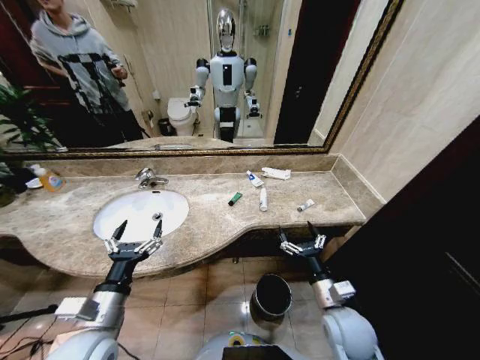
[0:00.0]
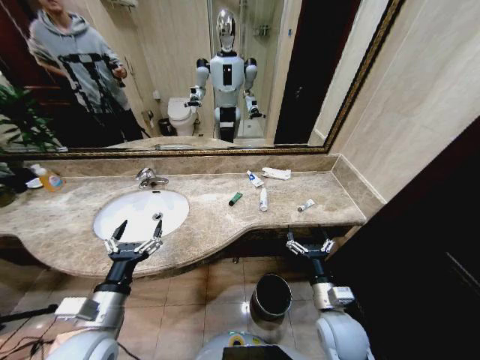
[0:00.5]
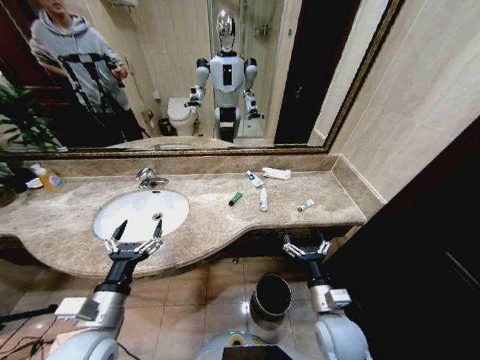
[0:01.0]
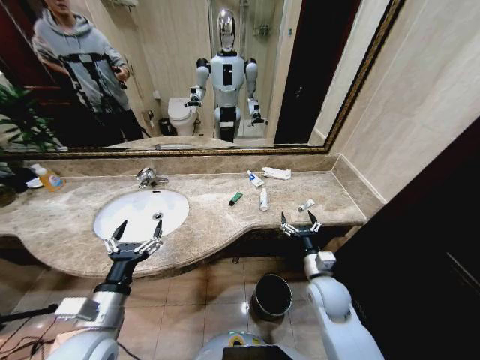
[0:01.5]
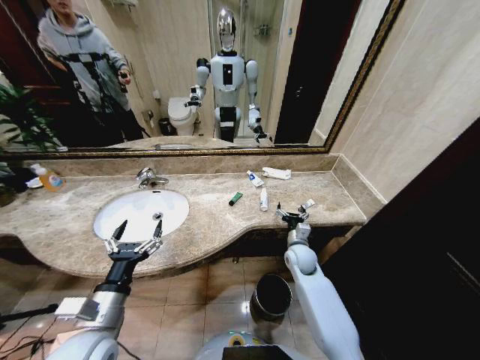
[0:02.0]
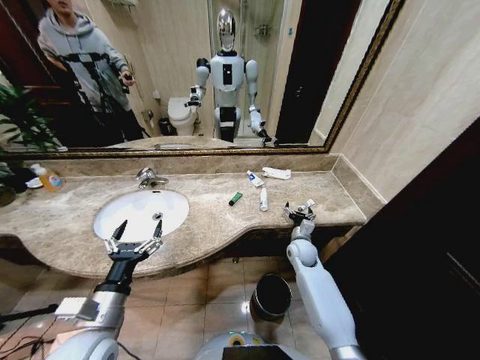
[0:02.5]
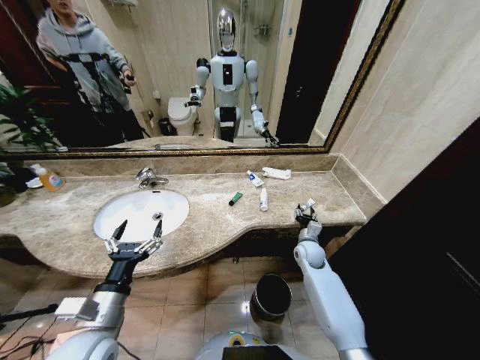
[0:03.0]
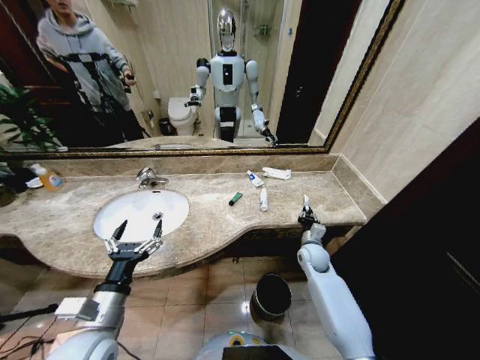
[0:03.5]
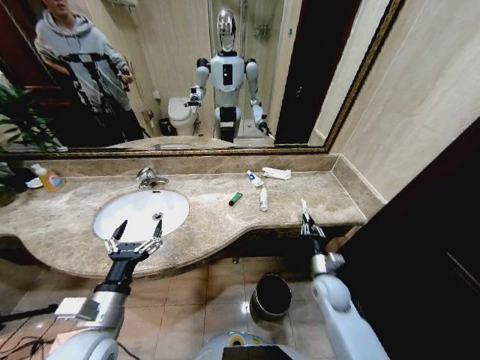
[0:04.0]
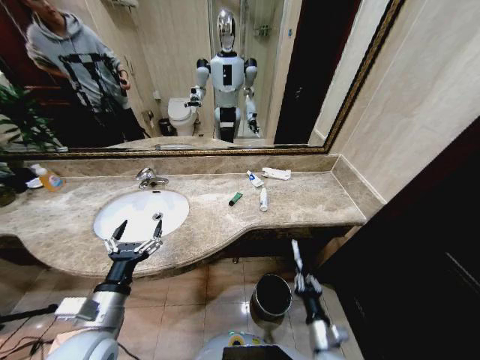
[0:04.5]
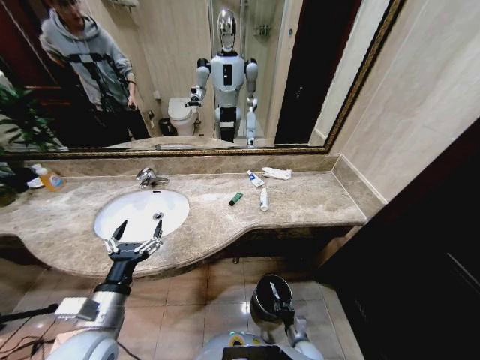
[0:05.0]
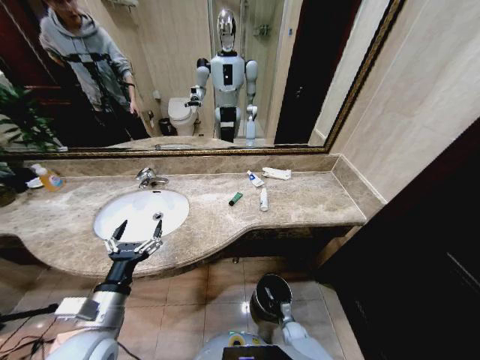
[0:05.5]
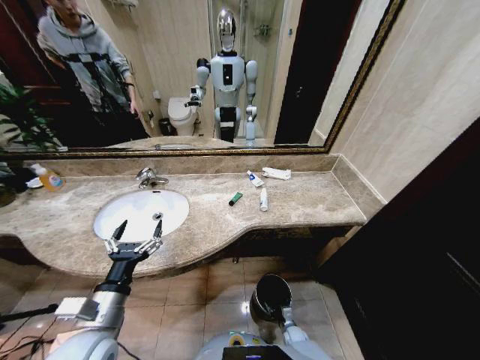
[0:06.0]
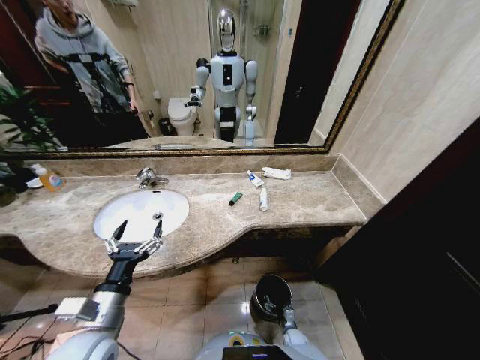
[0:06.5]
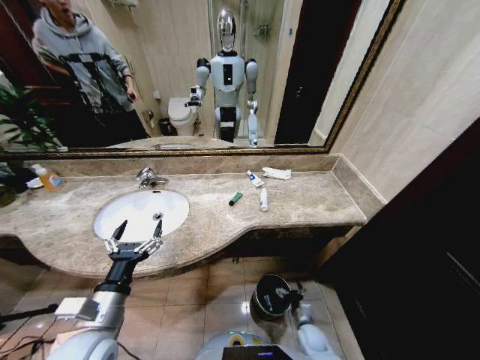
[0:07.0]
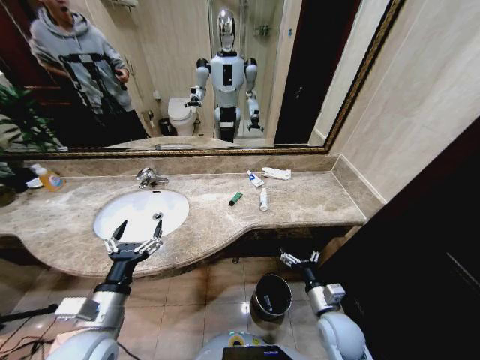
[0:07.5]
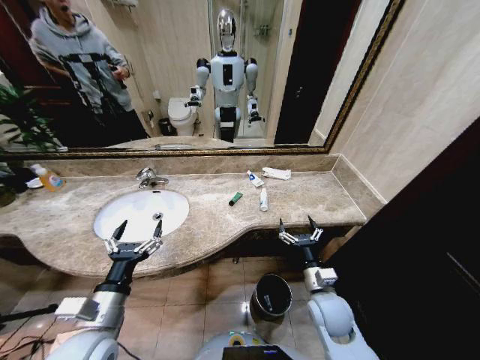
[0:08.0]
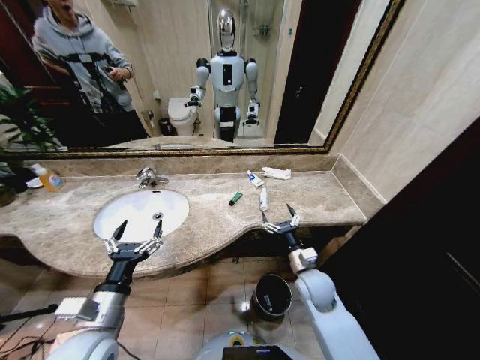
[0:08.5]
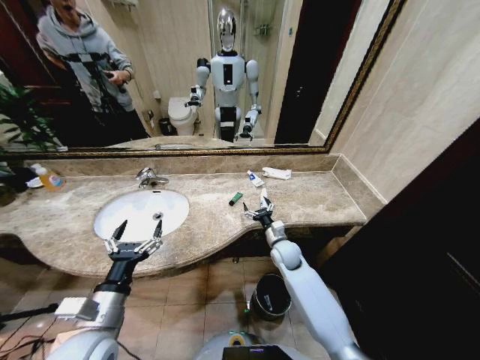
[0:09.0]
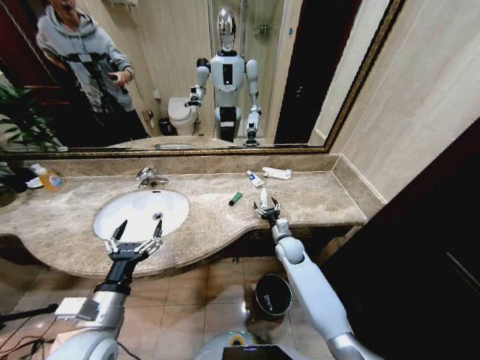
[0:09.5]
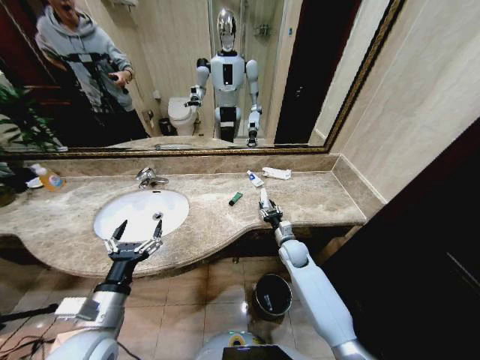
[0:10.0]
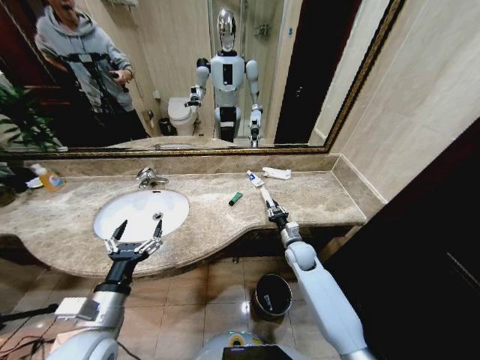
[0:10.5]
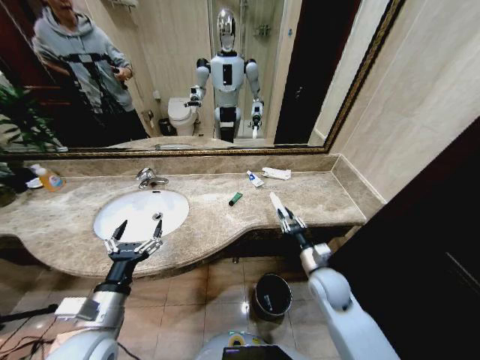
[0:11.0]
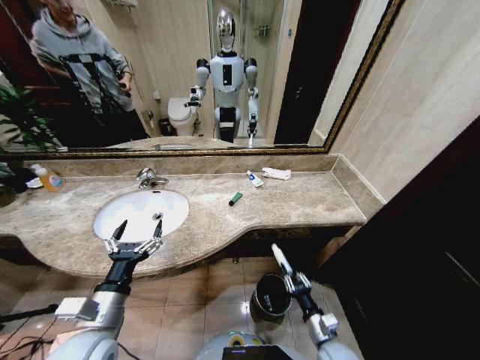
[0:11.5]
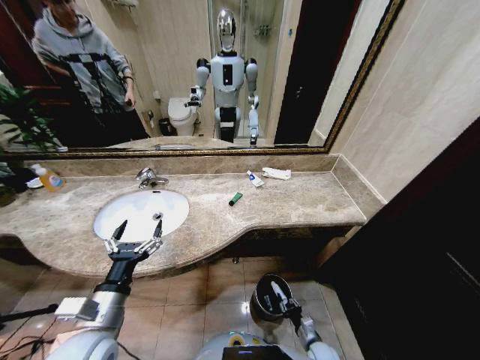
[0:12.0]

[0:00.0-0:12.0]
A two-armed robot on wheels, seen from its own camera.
Task of the whole recording: Pick up the trash from the sink and place it in the trash bin.
2.0 to 4.0 s: The right gripper travels backward and to the right by approximately 10 cm, and closes its fingers.
4.0 to 6.0 s: The right gripper shifts roughly 30 cm downward.
6.0 to 8.0 s: The right gripper shifts about 40 cm upward, and opens up.
8.0 to 10.0 s: The right gripper is displaced forward by about 20 cm, and closes up.
10.0 to 12.0 s: The right gripper heads backward and downward, covering roughly 35 cm.

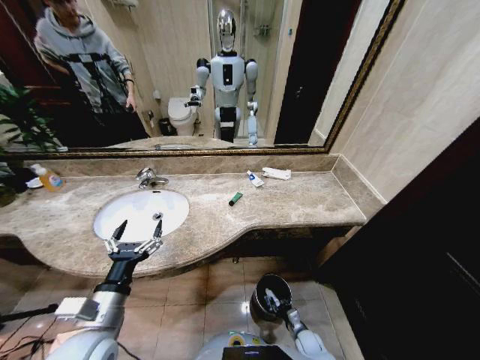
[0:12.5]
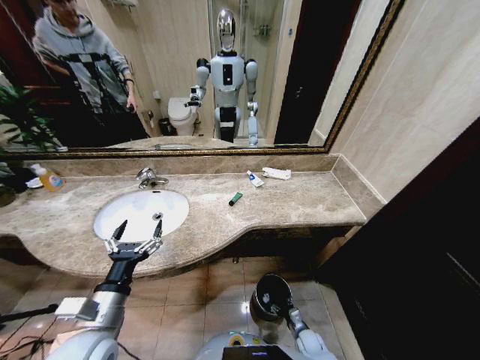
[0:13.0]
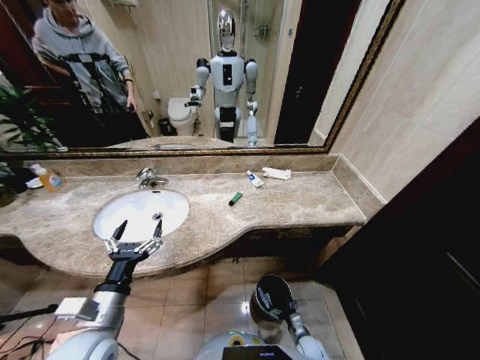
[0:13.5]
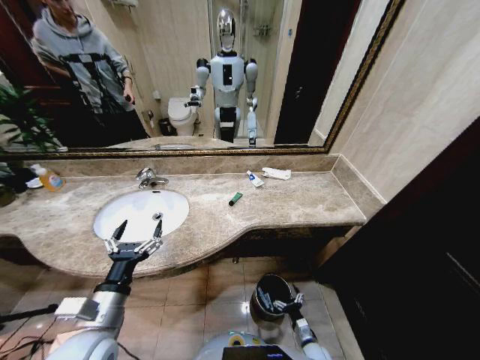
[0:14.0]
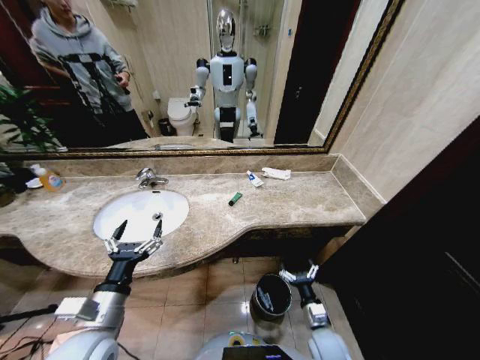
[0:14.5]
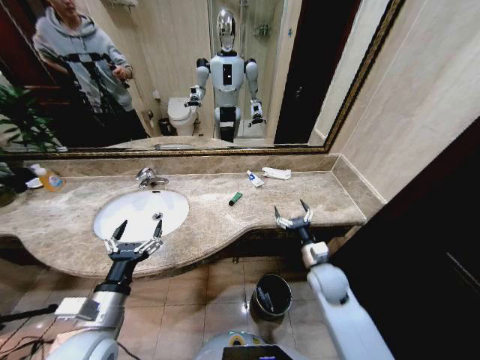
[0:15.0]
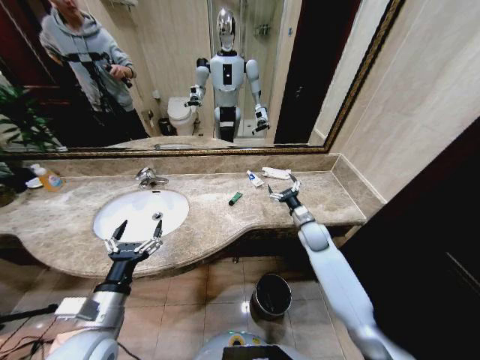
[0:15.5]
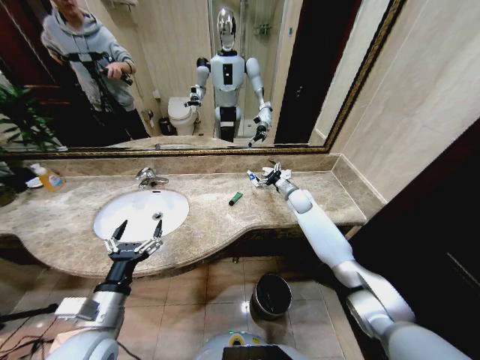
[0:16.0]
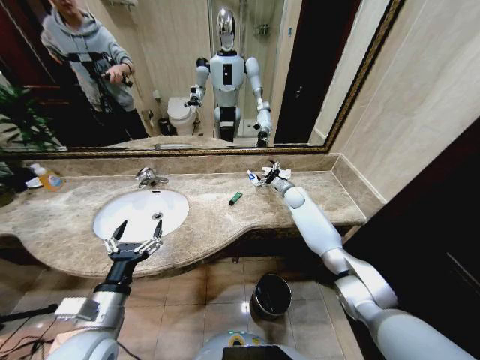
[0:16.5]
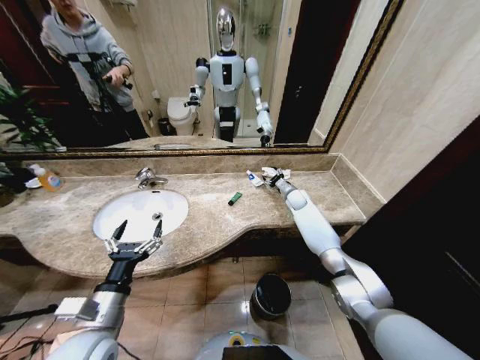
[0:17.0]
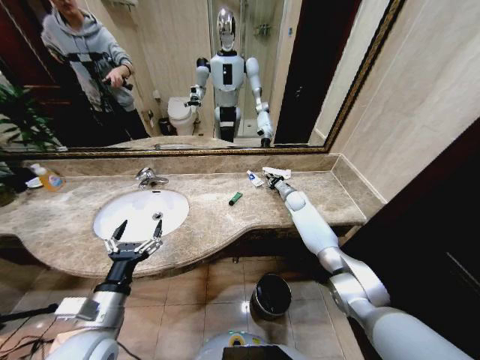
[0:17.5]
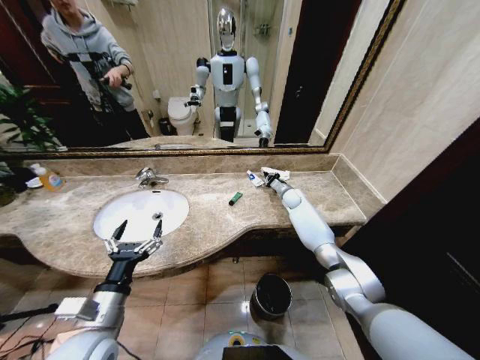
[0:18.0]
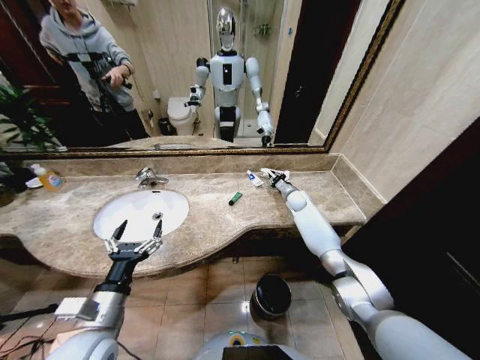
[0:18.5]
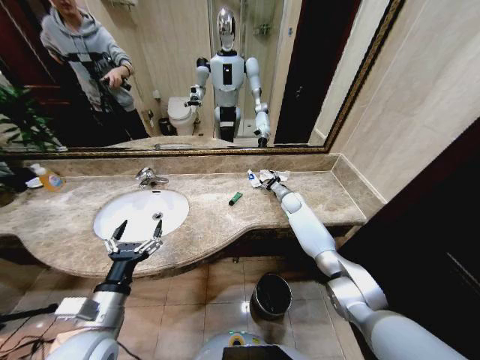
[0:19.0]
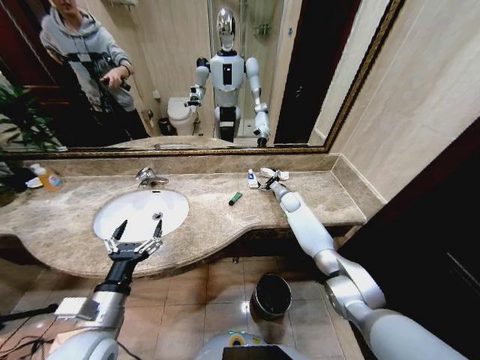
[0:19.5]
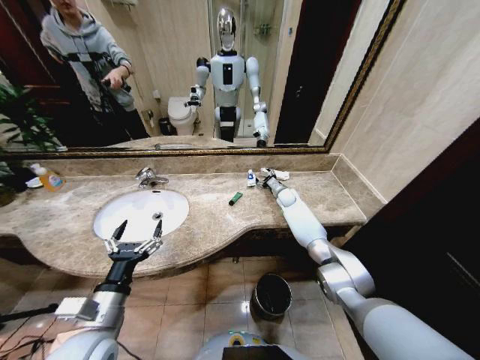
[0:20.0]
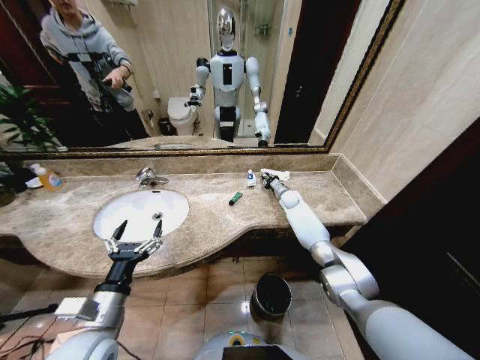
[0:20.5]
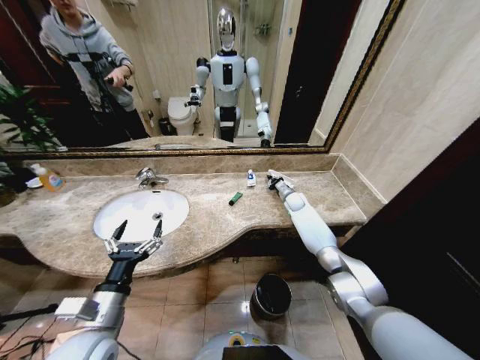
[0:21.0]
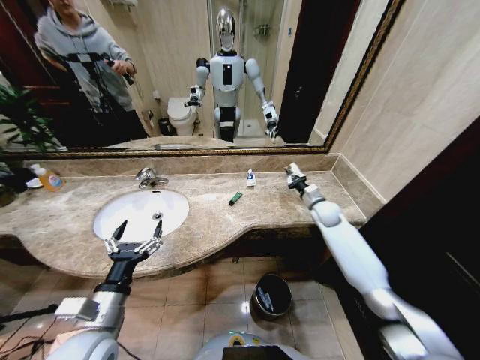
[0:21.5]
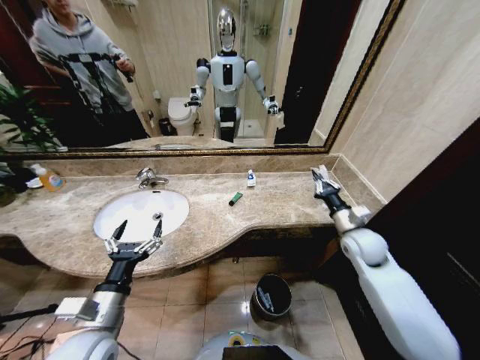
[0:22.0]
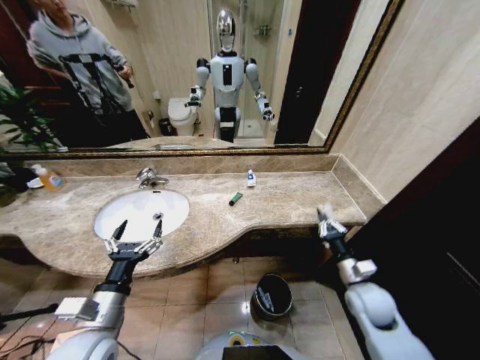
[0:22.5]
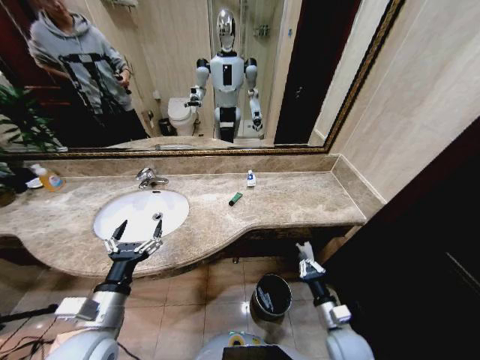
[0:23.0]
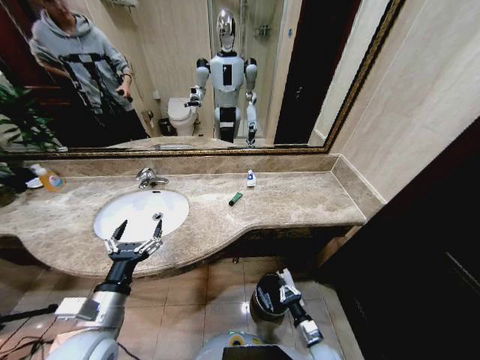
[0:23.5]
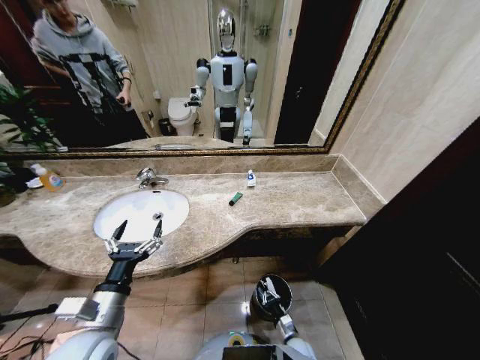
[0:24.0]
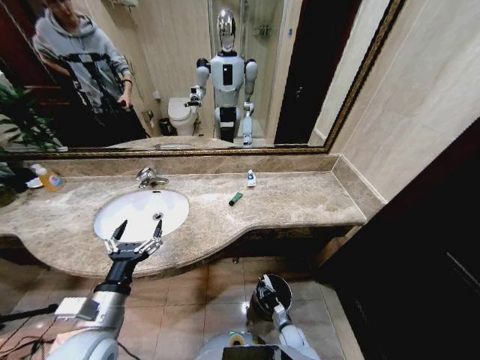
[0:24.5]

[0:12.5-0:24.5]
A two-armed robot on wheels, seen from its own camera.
Task of the whole recording: Pick up the trash from the sink and place it in the trash bin.
12.5 to 14.5 s: The right gripper is displaced upward by roughly 20 cm, and opens.
14.5 to 16.5 s: The right gripper goes some 40 cm forward.
16.5 to 18.5 s: The right gripper closes.
18.5 to 20.5 s: The right gripper opens, then closes again.
20.5 to 22.5 s: The right gripper heads backward, covering some 40 cm.
22.5 to 24.5 s: The right gripper shifts about 35 cm downward and to the left.

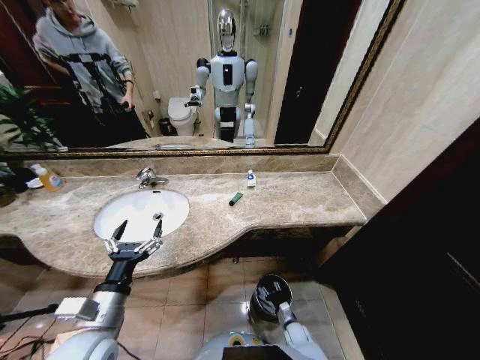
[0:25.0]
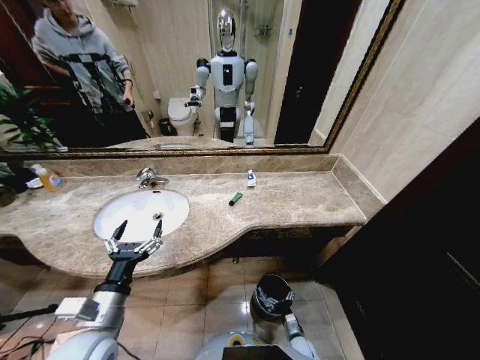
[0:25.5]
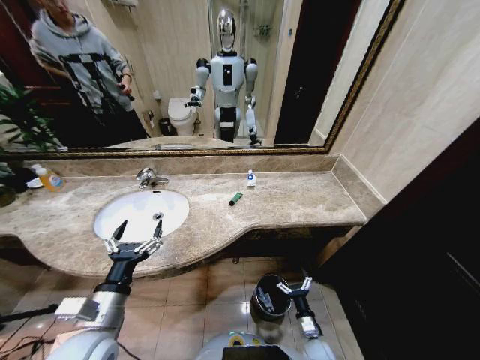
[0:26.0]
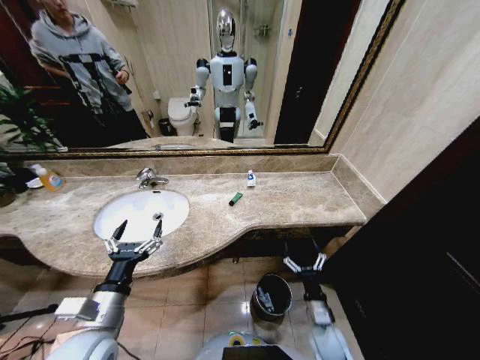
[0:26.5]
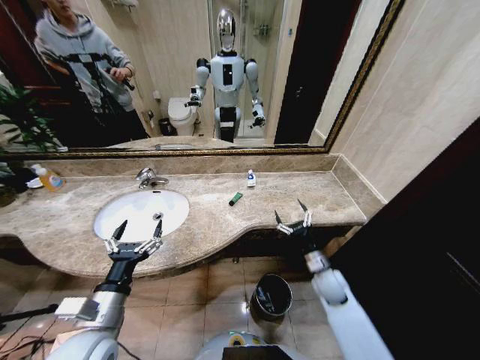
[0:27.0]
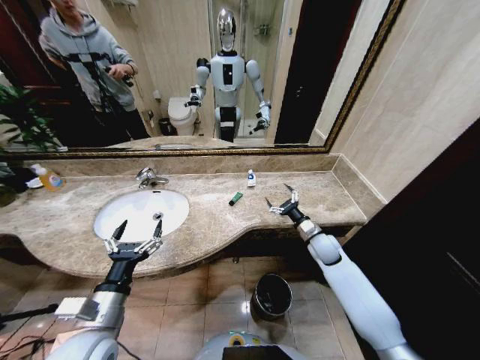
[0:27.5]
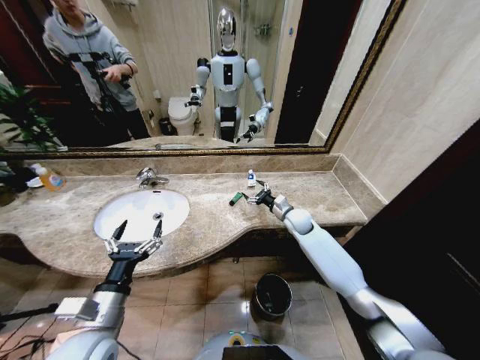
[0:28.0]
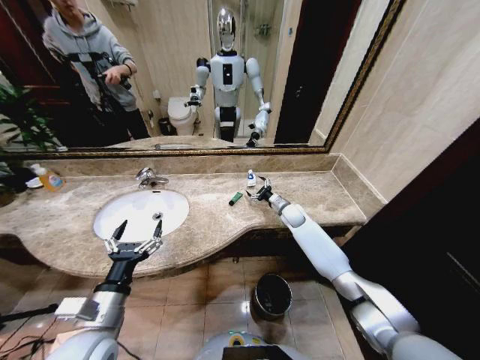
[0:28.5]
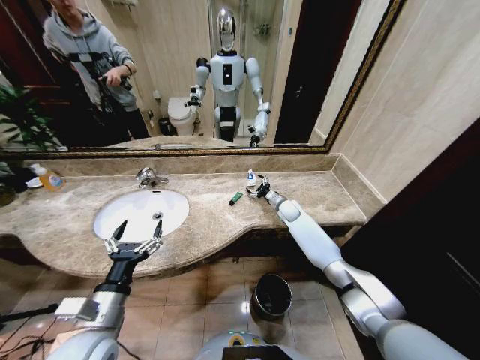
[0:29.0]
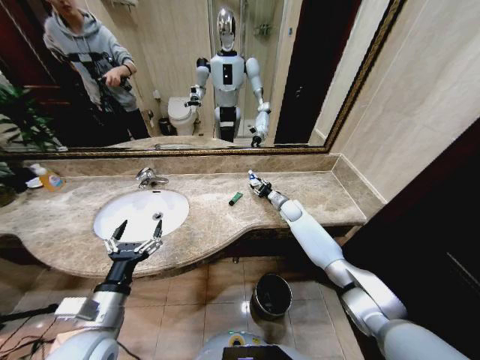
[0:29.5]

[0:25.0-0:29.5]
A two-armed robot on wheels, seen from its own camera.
Task of the whole recording: Pick up the trash from the sink and place it in the trash bin.
25.0 to 27.0 s: The right gripper goes about 30 cm upward, and opens up.
27.0 to 29.5 s: The right gripper goes approximately 25 cm forward, and closes its fingers.
